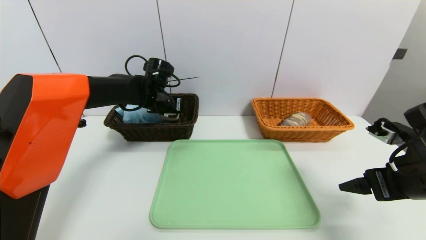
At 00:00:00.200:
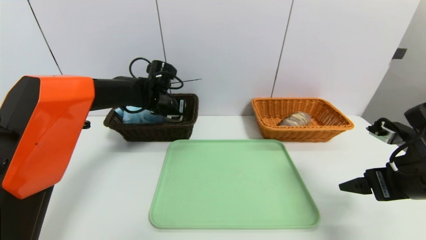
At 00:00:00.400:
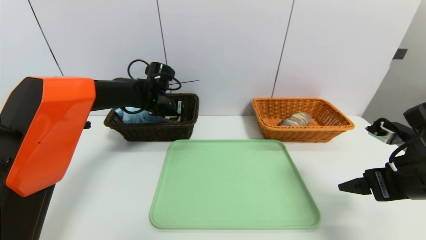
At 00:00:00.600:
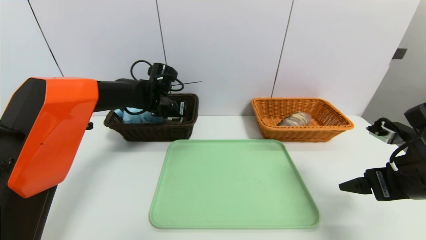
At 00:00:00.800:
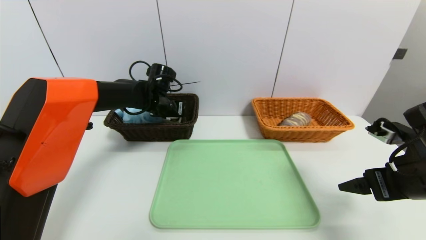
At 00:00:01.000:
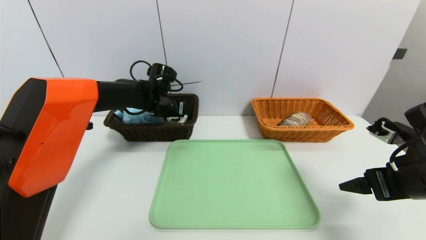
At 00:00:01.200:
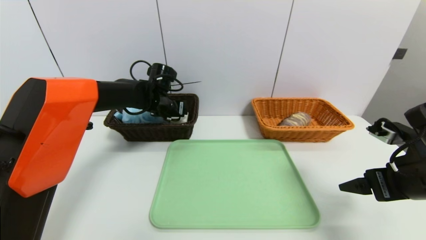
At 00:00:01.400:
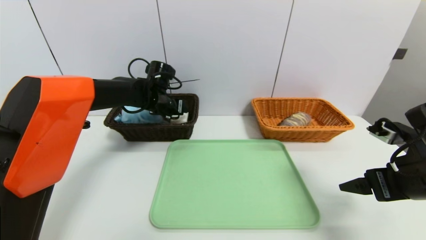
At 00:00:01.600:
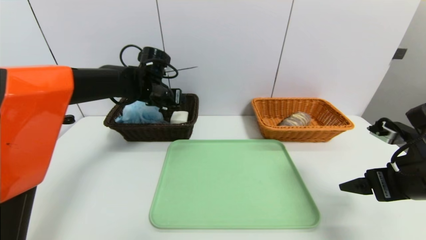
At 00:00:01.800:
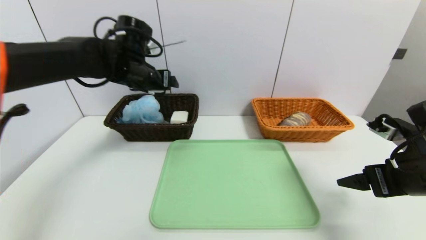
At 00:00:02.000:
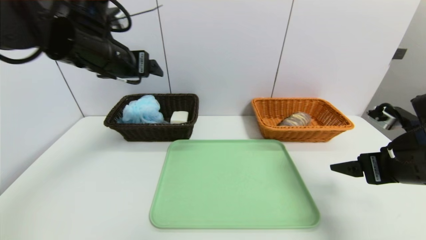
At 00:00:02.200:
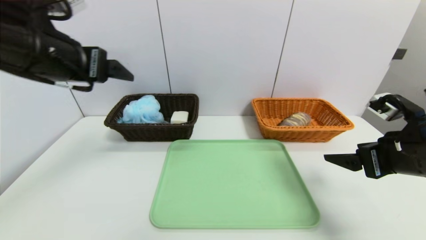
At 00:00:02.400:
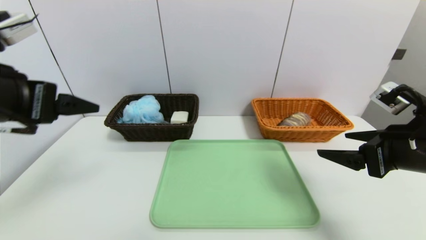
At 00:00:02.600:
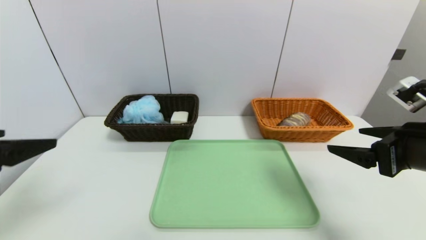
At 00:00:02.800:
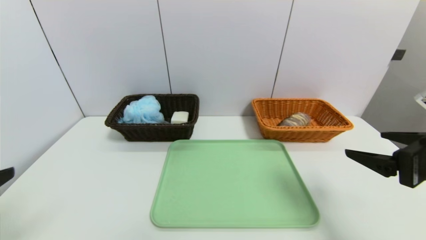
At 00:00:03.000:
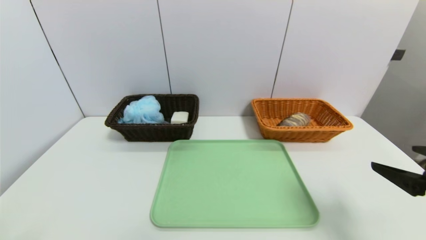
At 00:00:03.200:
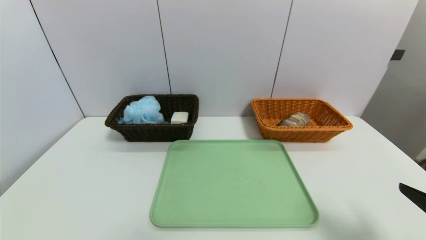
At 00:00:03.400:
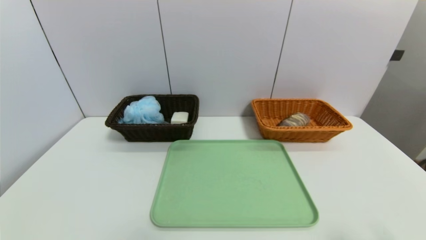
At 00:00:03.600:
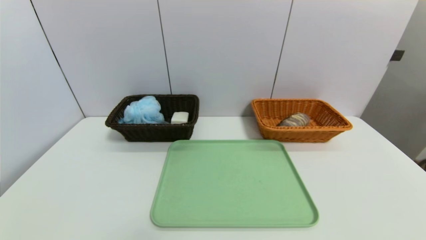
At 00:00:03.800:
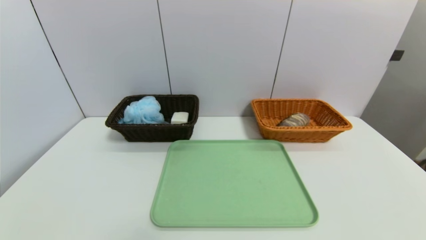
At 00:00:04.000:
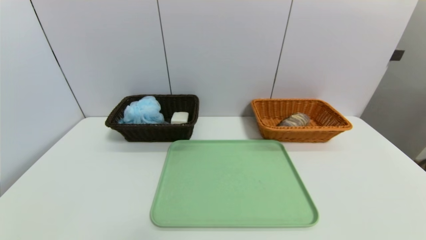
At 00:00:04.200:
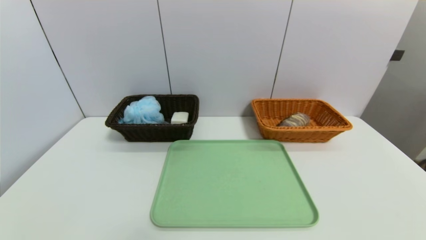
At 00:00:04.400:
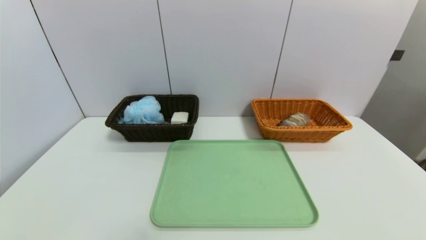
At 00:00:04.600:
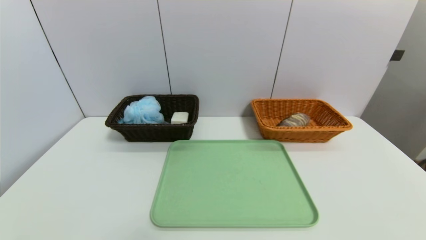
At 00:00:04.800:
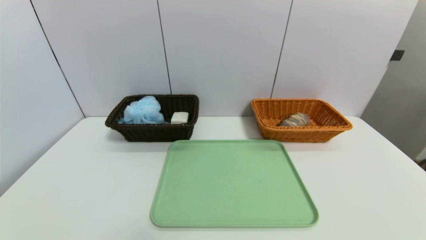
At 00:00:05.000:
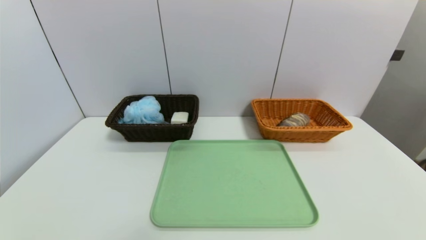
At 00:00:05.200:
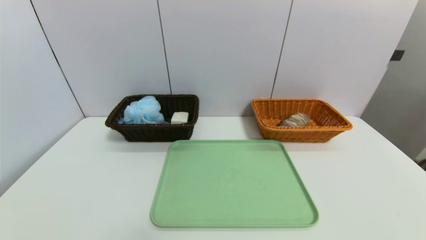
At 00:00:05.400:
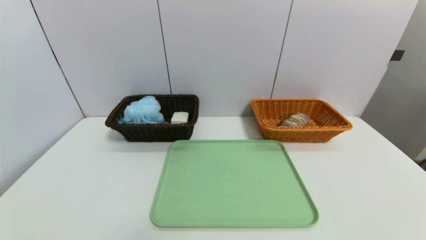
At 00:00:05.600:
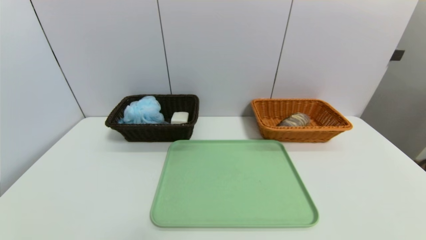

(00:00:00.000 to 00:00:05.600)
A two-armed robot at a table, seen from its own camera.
Task of the whole recording: place the food in the right basket with the right gripper, and place the non food items in the left basket with the left gripper.
00:00:00.000 - 00:00:01.400: There are only small adjustments of the grippers.
00:00:01.400 - 00:00:02.800: The left gripper is displaced backward by some 40 cm. Meanwhile the right gripper shifts by approximately 5 cm.
00:00:02.800 - 00:00:04.200: The left gripper is displaced downward by approximately 15 cm. Meanwhile the right gripper shifts about 20 cm backward and downward.
